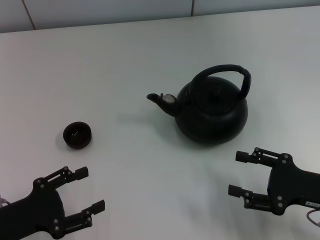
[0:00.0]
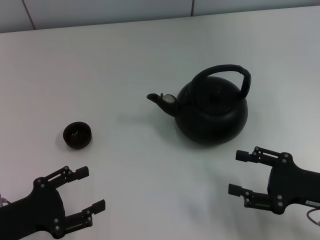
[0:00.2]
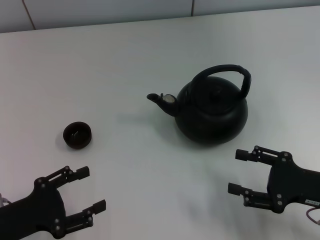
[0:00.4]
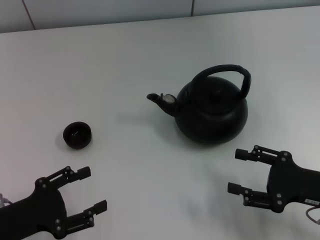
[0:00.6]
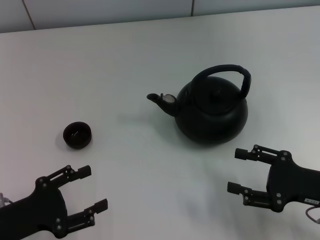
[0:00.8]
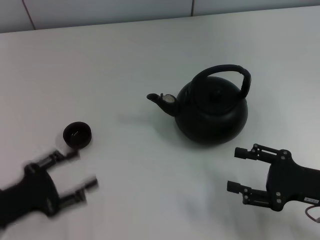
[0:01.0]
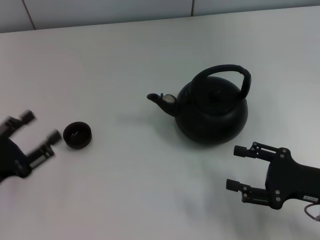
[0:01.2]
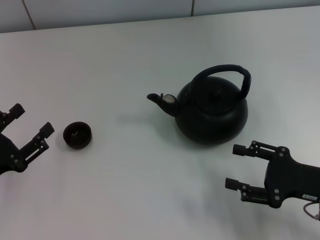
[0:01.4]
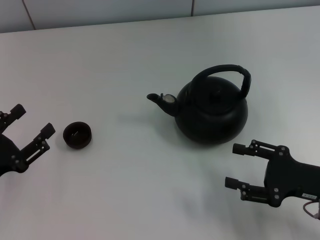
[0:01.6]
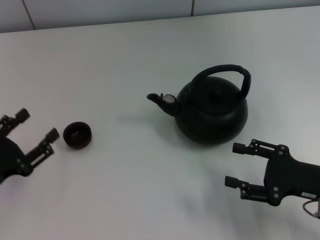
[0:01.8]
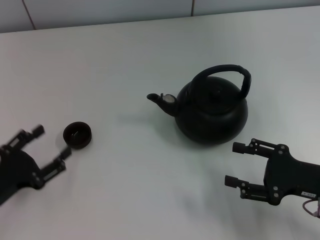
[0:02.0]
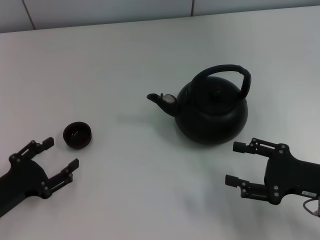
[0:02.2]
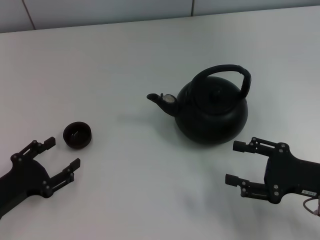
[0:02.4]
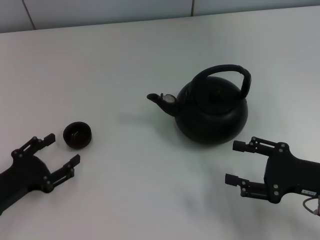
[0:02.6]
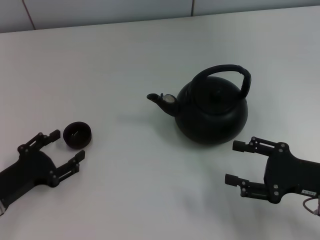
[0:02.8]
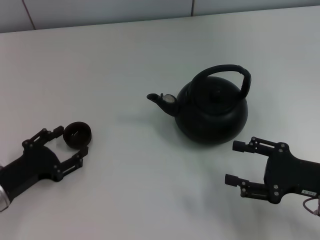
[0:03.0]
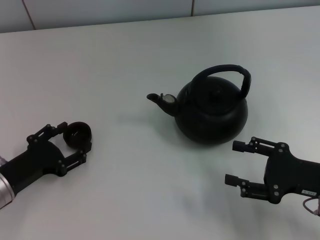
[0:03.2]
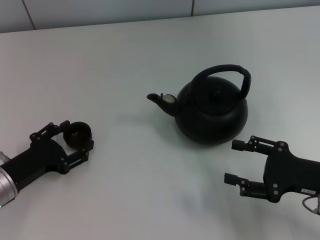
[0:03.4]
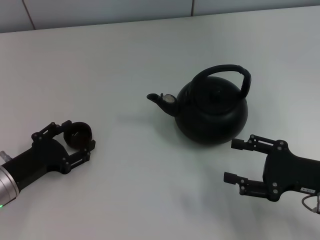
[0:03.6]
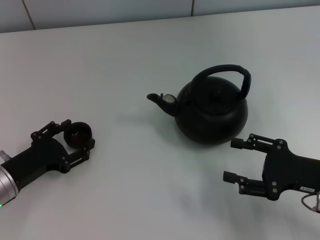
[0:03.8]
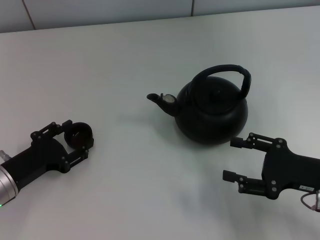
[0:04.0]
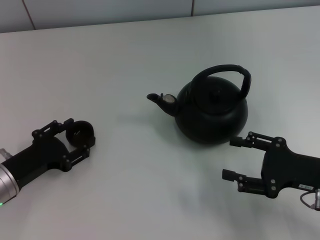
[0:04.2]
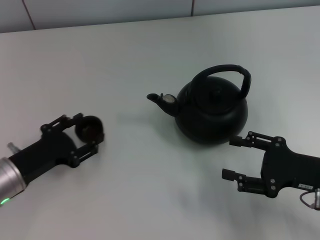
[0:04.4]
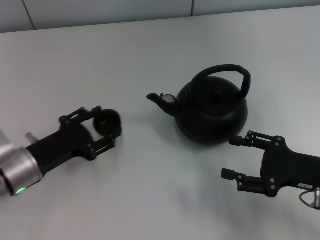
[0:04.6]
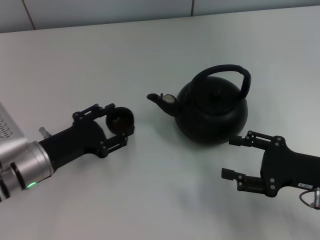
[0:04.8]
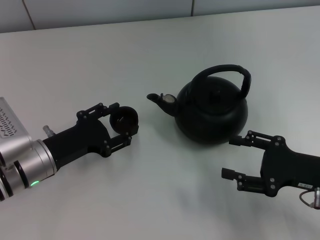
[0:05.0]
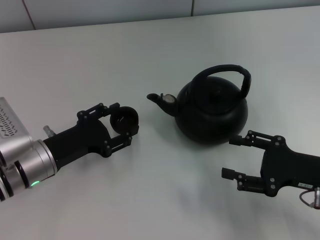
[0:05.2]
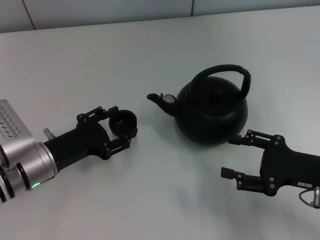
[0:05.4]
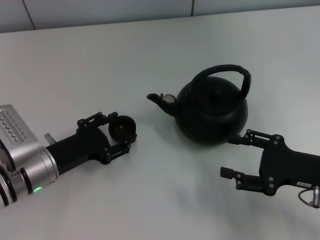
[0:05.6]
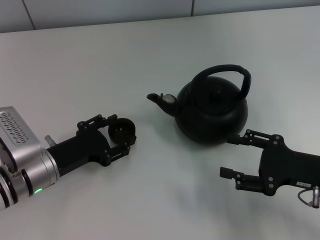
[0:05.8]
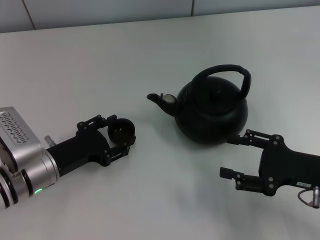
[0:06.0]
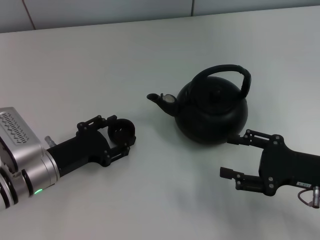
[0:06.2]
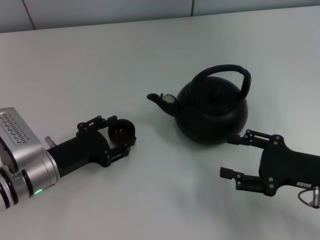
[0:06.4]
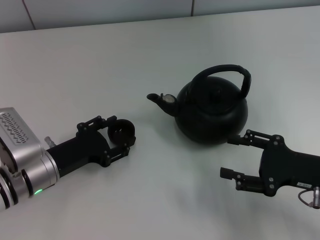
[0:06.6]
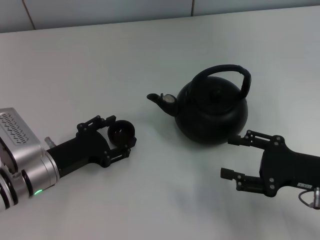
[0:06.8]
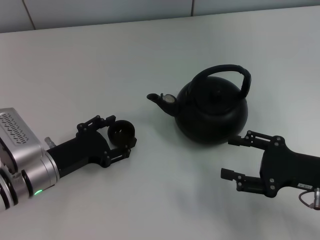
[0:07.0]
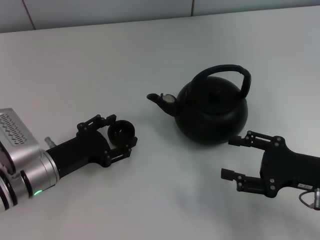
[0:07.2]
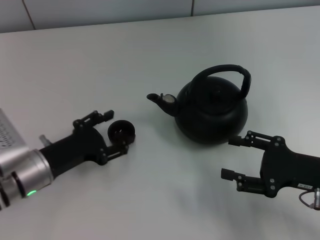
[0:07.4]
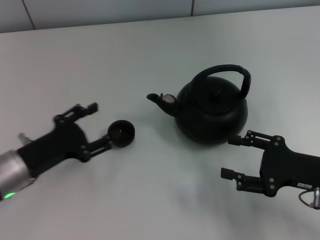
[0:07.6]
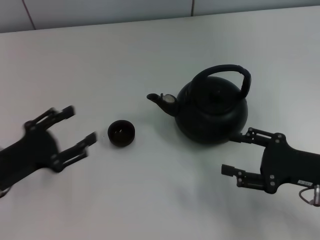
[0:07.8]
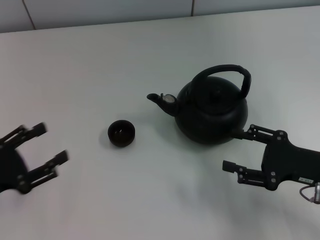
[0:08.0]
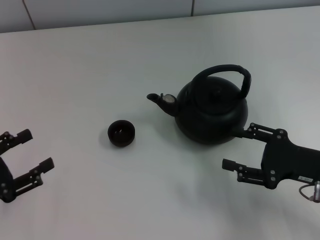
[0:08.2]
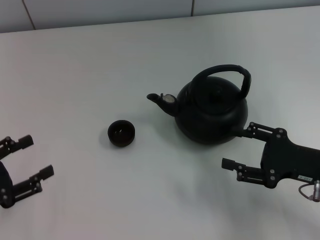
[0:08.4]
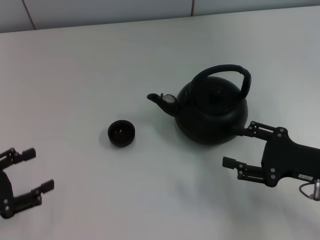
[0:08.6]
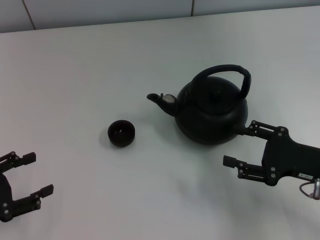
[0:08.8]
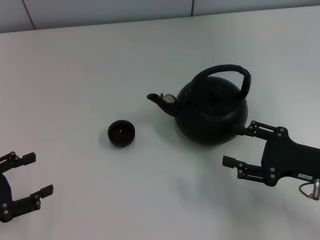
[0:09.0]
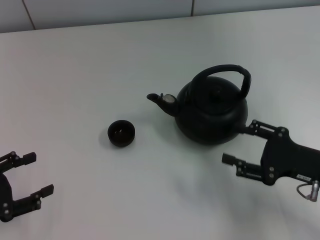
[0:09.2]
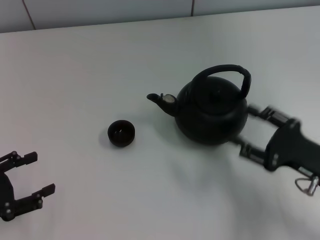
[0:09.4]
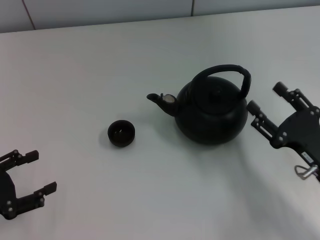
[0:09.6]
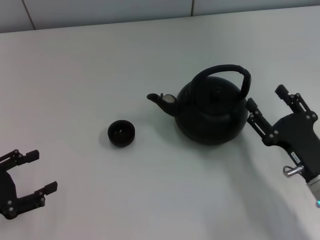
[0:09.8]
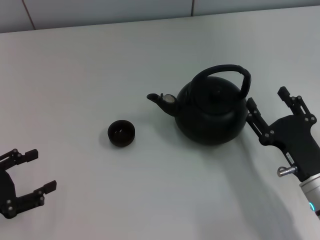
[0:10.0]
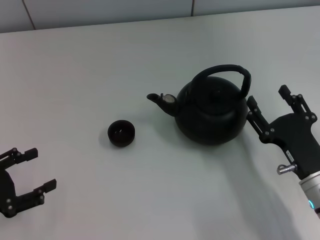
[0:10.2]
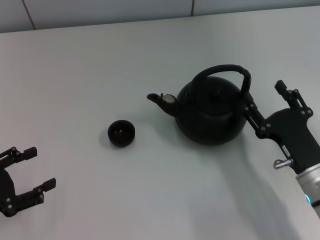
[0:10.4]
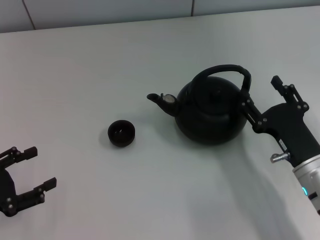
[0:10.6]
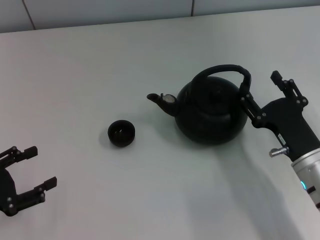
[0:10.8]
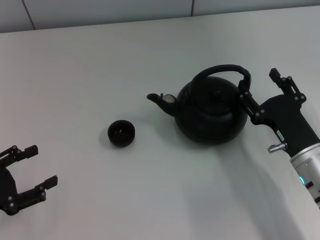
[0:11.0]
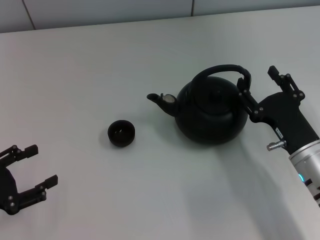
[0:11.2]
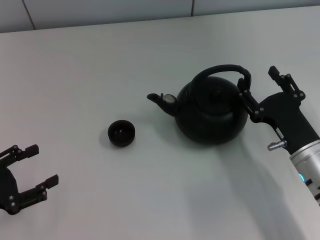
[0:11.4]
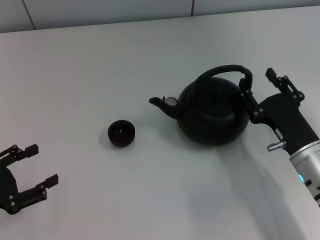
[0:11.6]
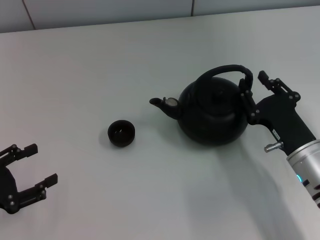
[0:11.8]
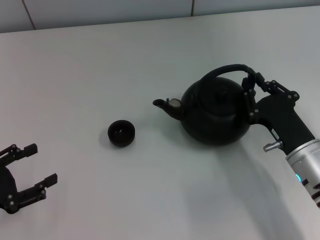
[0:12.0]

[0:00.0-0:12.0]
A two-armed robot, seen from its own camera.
Task of the whole recording: Grasp the handle of the teapot with one hand and pour tea into the teacup.
Step, 0:00.0 to 0:04.4: Pick up the teacup with the left gripper.
Step, 0:04.8 to 0:08.0: Place the teacup in the center of view with the left gripper.
0:01.6 to 0:03.0: The left gripper changes place by roughly 5 cm.
0:03.0 to 0:04.4: There are only small adjustments of the grippers.
0:04.4 to 0:07.6: The grippers stay close to where they were, moving slightly.
0:07.6 to 0:09.0: The left gripper goes roughly 10 cm to the left and backward.
0:09.0 to 0:10.4: The right gripper heads to the left, covering some 5 cm.
0:10.4 to 0:12.0: The right gripper closes up.

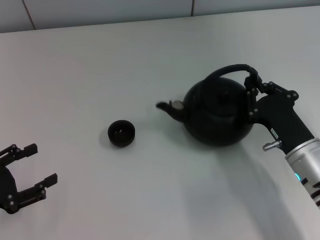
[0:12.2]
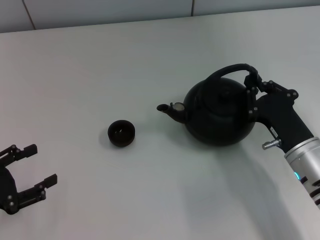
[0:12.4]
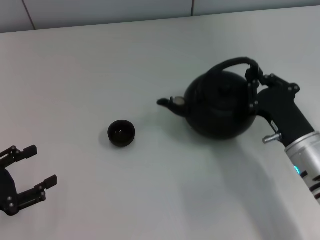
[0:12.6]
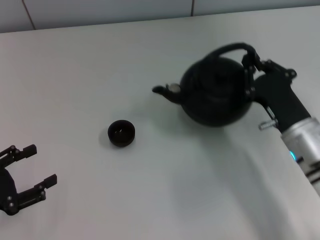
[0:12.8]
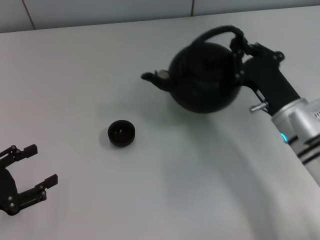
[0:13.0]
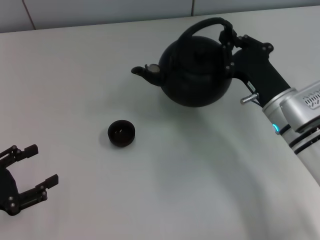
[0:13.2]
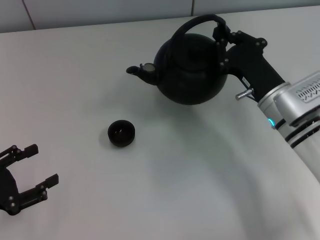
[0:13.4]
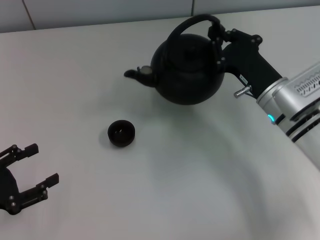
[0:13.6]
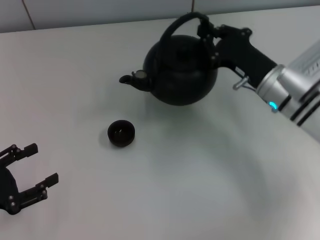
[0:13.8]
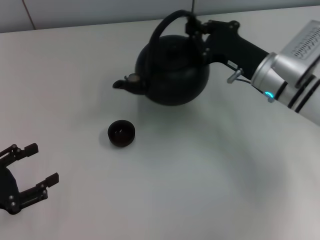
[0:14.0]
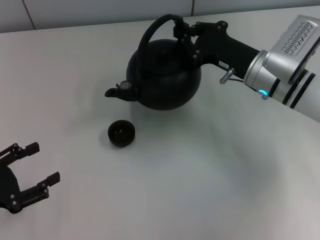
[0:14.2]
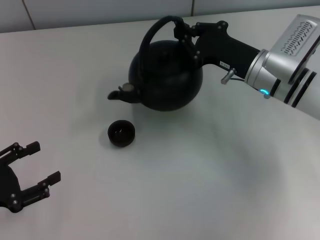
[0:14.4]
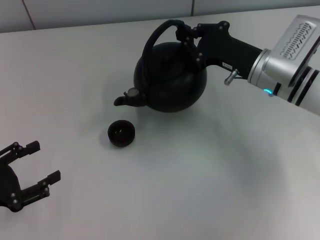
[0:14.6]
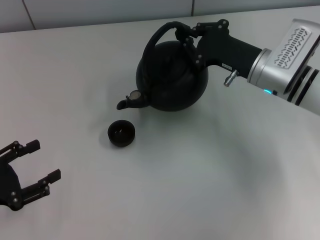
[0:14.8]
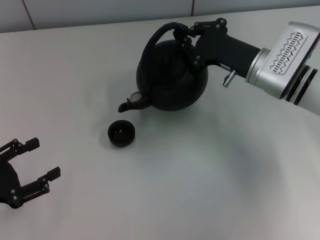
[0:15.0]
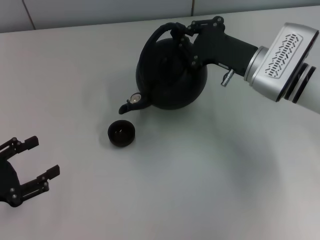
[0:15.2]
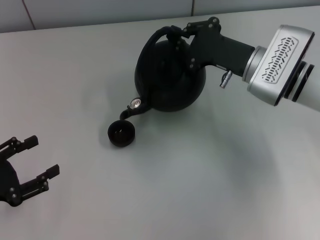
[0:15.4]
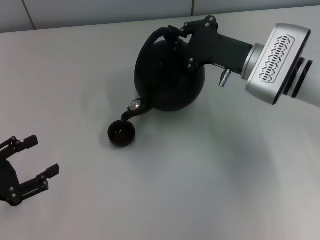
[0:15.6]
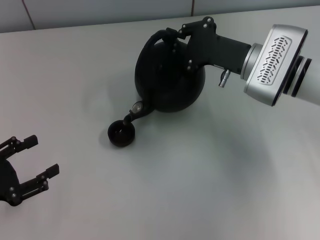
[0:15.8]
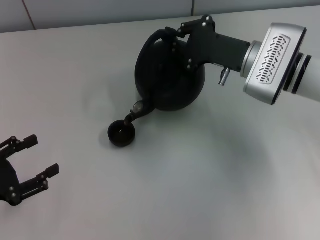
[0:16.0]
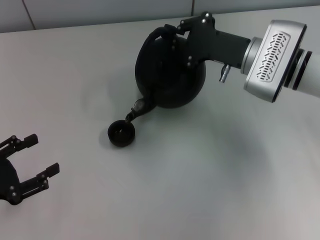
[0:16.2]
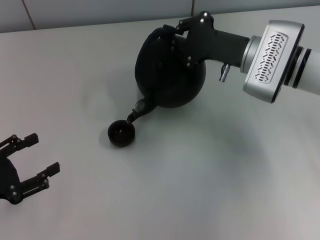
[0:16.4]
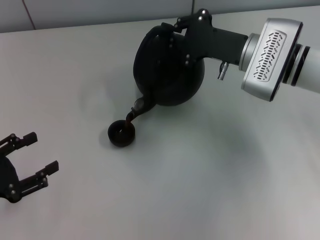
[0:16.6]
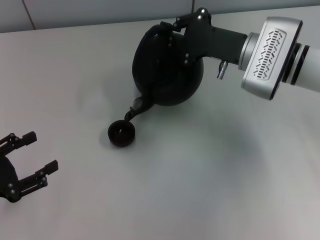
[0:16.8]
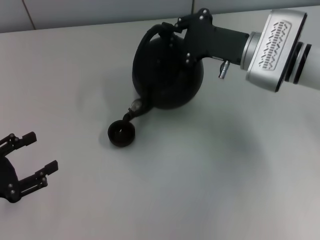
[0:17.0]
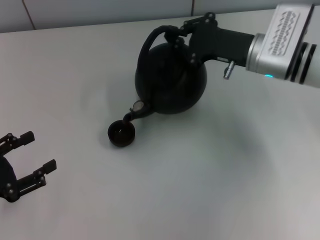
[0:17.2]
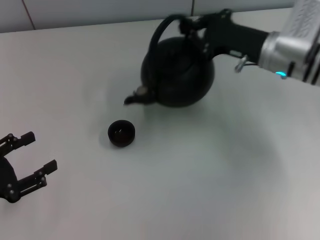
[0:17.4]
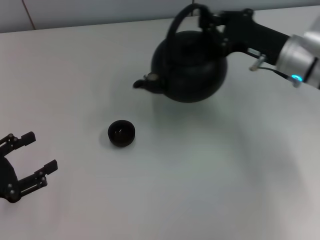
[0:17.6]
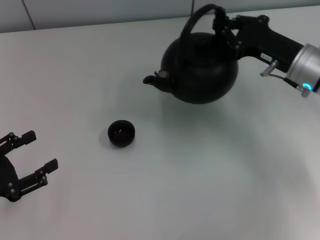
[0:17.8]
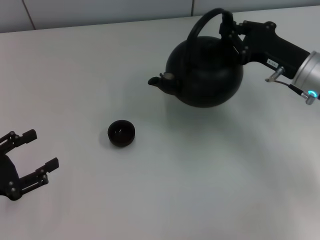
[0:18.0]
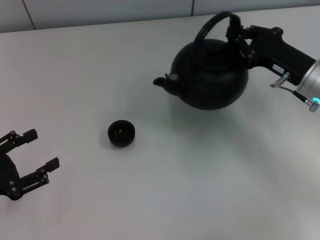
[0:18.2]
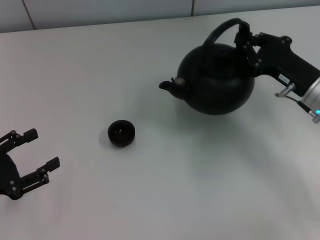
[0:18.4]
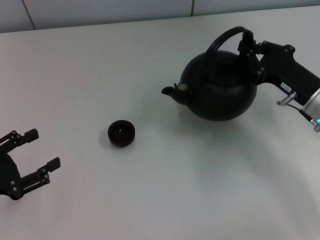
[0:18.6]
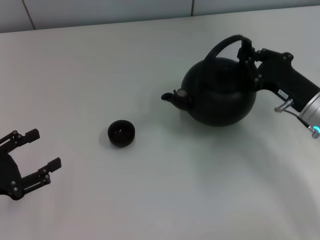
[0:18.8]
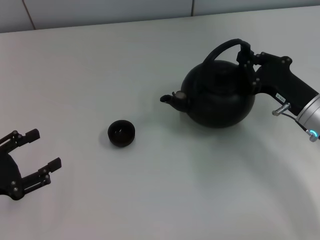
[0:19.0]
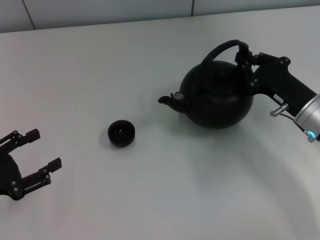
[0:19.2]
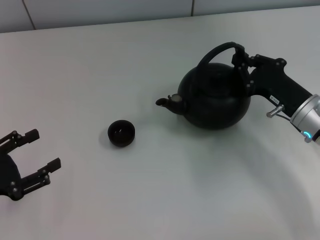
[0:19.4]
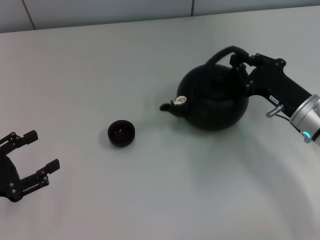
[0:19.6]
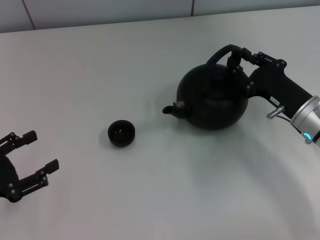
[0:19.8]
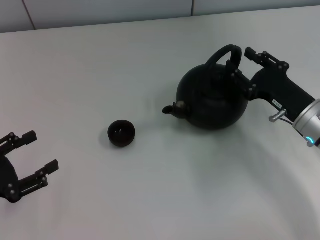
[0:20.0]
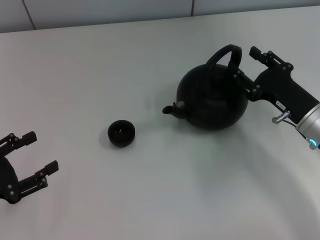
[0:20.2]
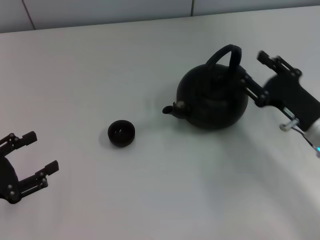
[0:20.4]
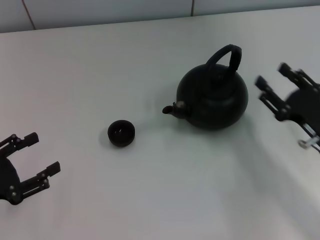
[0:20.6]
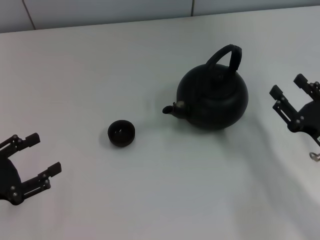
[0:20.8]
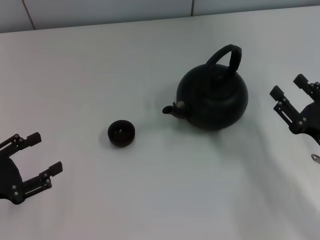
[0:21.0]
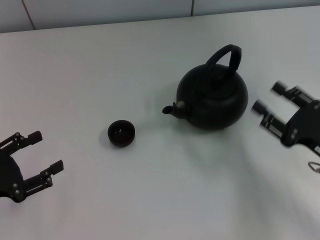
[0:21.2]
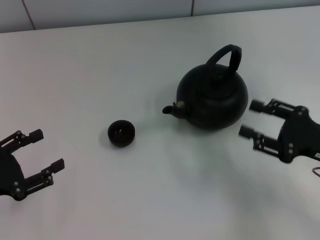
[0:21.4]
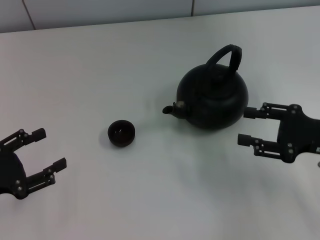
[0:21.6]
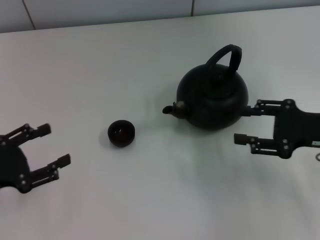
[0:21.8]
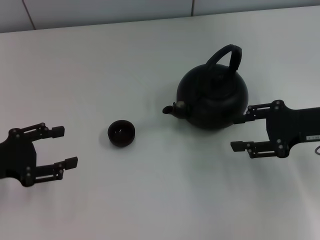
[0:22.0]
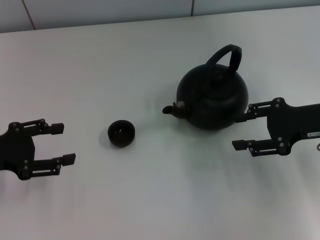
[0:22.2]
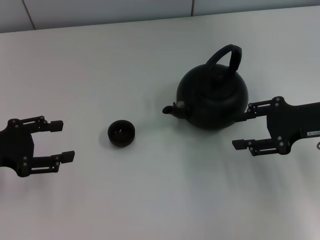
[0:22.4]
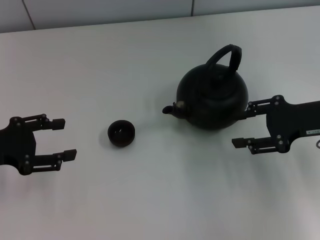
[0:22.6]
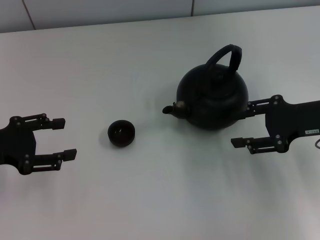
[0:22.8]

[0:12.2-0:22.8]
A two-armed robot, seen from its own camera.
Task of the whole recording: Grasp the handle of the teapot with one hand and pour tea into the teacup.
Step, 0:18.0 to 0:21.0: Put down the teapot with the right gripper.
0:12.2 to 0:13.8: The right gripper is displaced forward and upward by roughly 15 cm.
0:15.2 to 0:16.8: There are only small adjustments of the grippers.
0:16.8 to 0:18.2: The right gripper shifts roughly 10 cm to the right and backward.
0:18.2 to 0:19.8: The right gripper moves about 5 cm.
0:19.8 to 0:21.2: The right gripper travels backward by approximately 10 cm, and opens up.
0:21.2 to 0:22.8: The left gripper moves forward, some 10 cm, while the right gripper shifts approximately 10 cm forward and upward.
